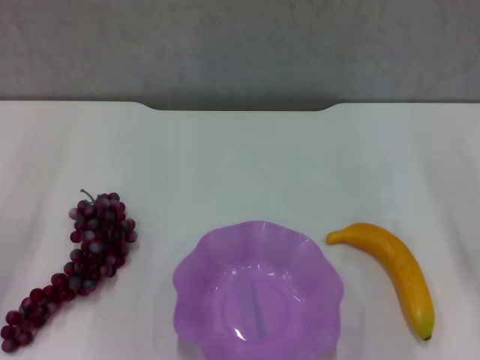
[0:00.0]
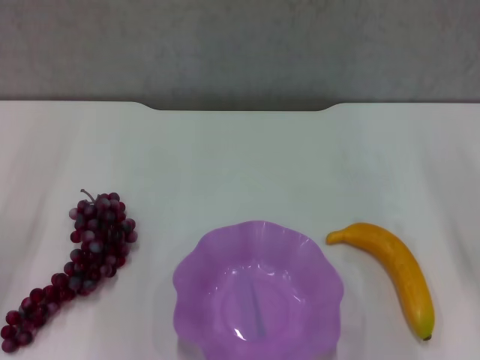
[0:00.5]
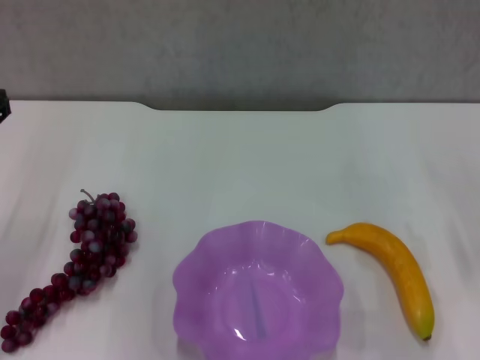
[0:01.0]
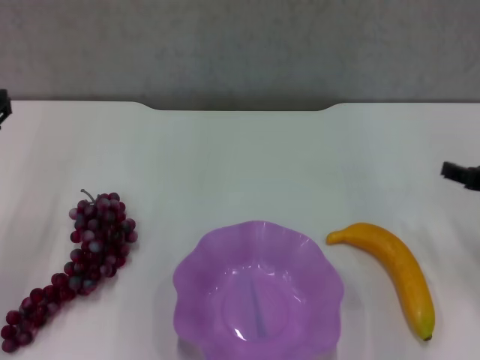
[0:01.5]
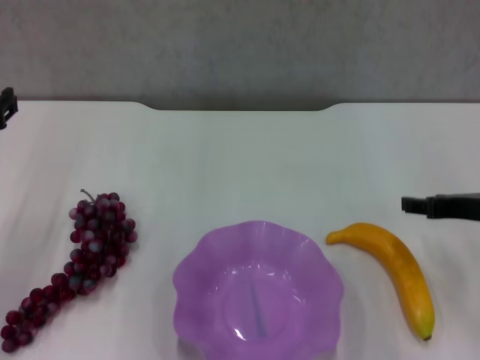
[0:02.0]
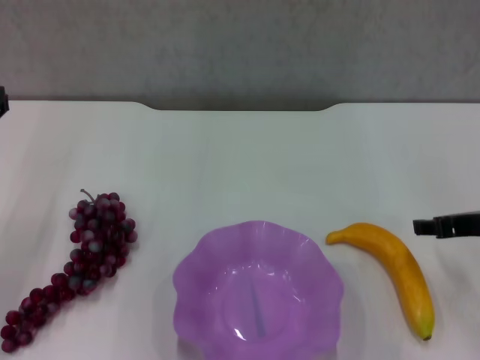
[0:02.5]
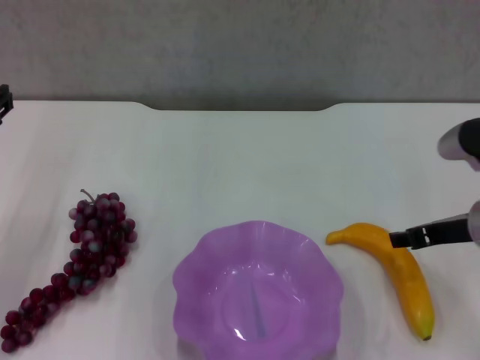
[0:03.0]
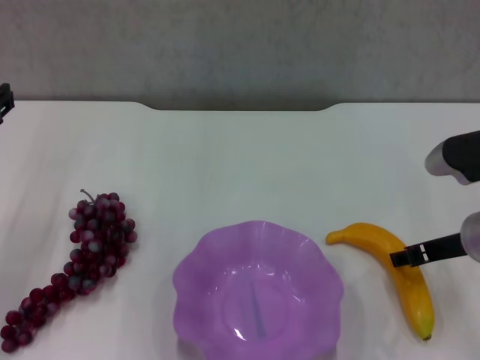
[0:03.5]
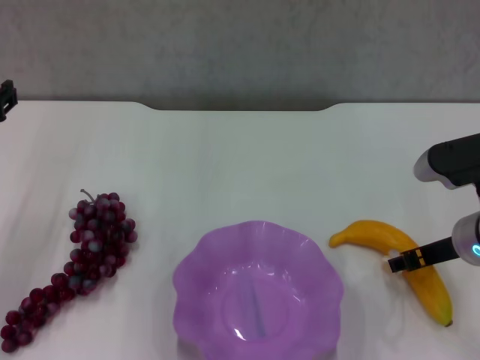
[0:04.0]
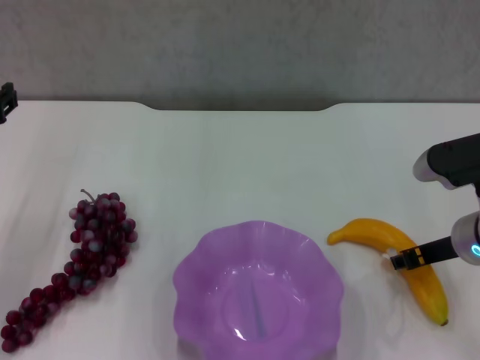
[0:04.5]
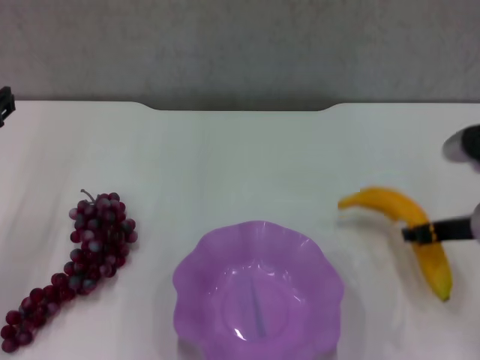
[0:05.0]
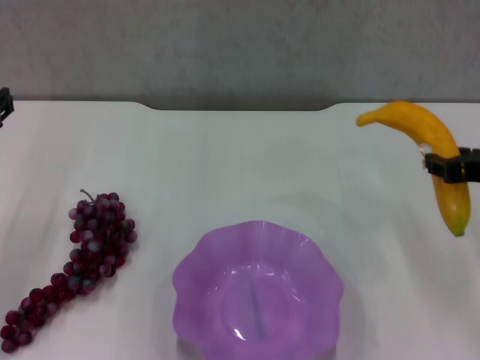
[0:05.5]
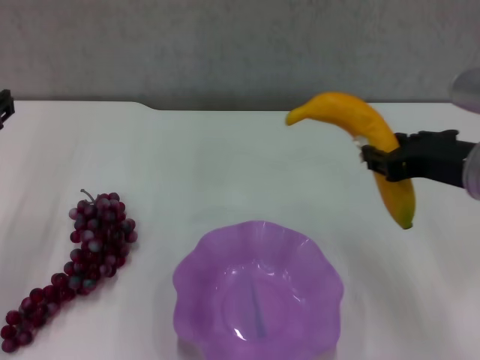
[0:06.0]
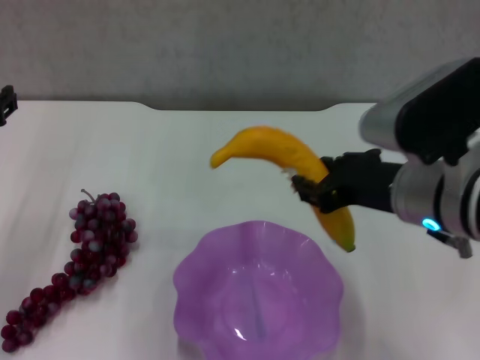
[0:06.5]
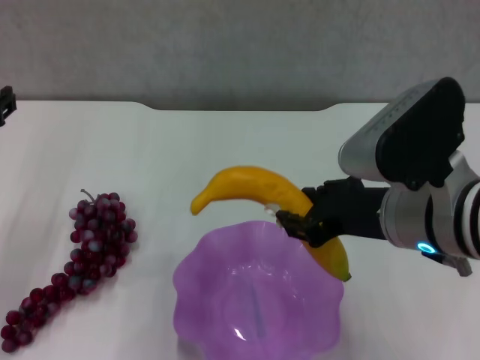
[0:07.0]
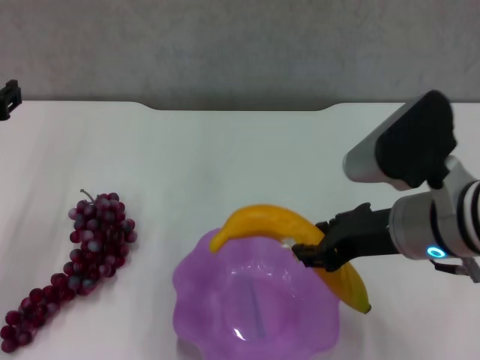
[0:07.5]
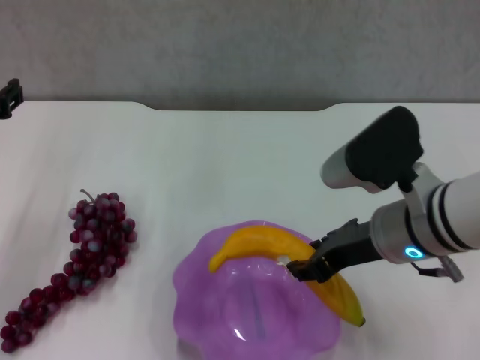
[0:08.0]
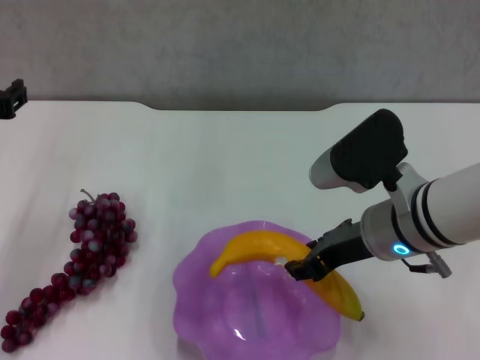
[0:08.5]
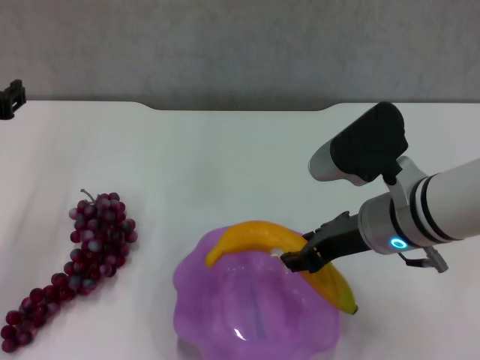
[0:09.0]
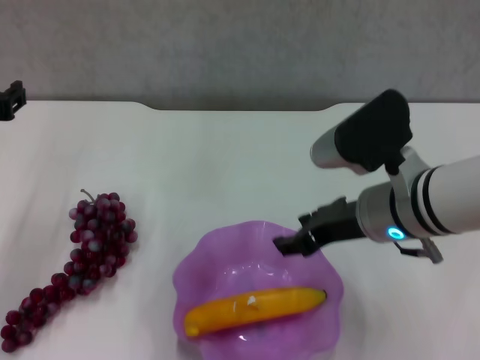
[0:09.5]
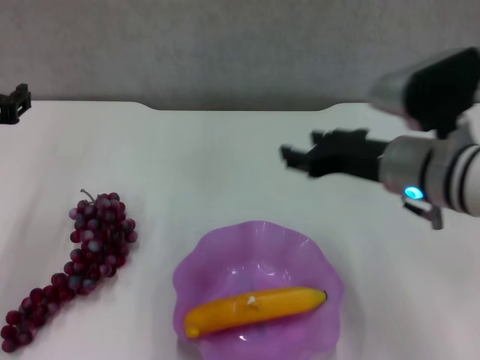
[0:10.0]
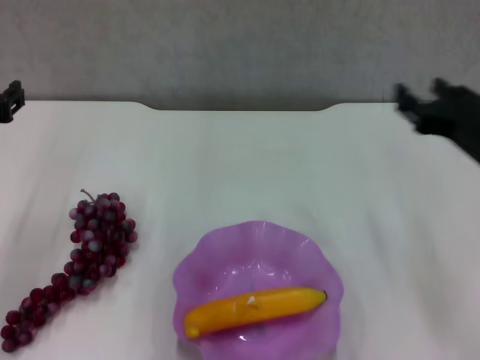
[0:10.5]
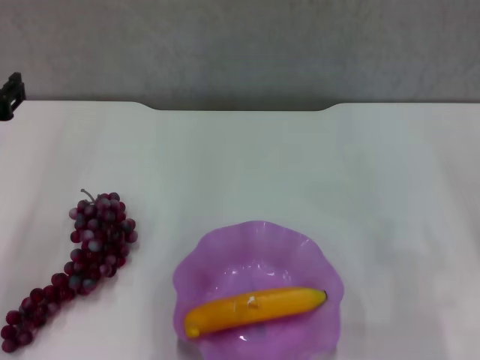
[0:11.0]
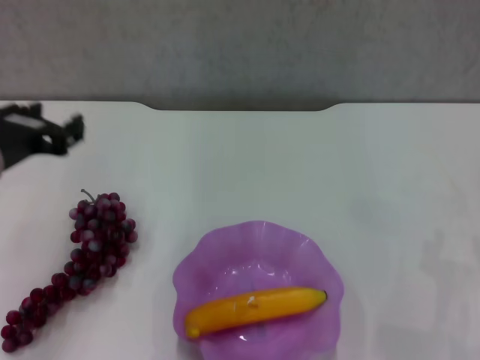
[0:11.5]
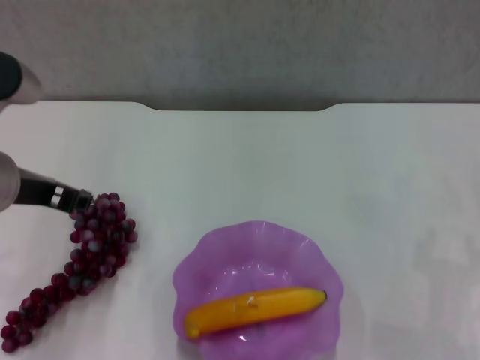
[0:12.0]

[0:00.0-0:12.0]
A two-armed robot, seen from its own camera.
Step, 0:00.0 to 0:04.5: Grasp the banana with right gripper.
Step, 0:05.0 to 0:09.0: Place the banana in the purple plate with right gripper.
0:02.0 to 0:04.0: The right gripper changes place by approximately 5 cm.
0:04.0 to 0:06.0: The right gripper moves upward, approximately 10 cm, and closes.
0:06.0 to 0:08.0: The right gripper shifts approximately 5 cm to the left.
0:08.0 to 0:10.0: The right gripper opens its fingers.
0:10.0 to 0:12.0: The left gripper heads to the right, covering about 5 cm, while the right gripper shifts roughly 20 cm to the right.

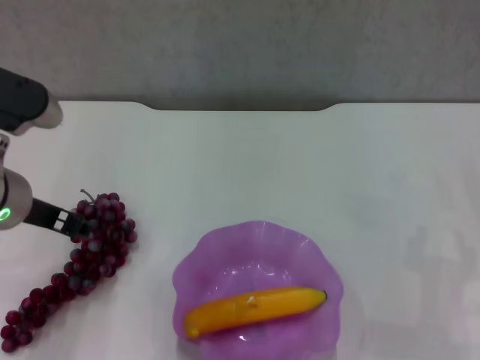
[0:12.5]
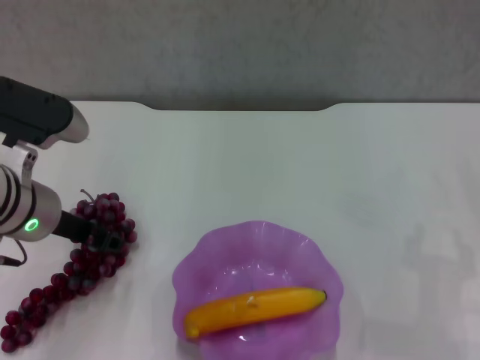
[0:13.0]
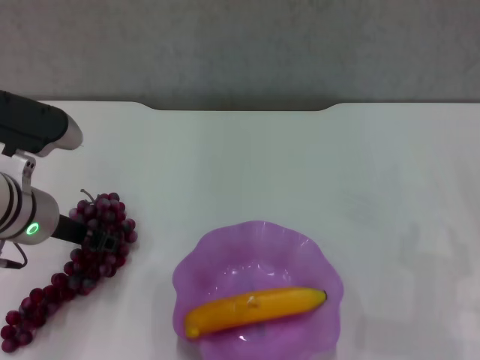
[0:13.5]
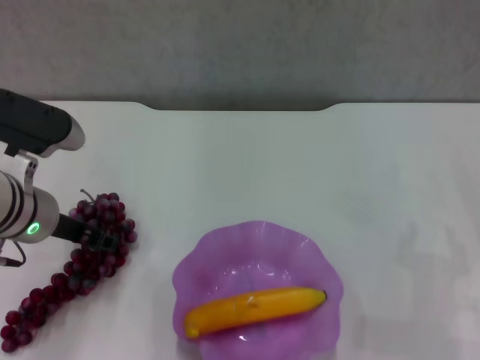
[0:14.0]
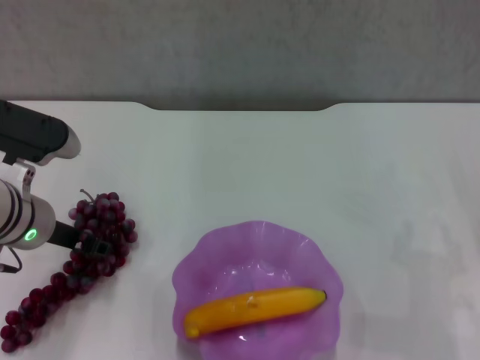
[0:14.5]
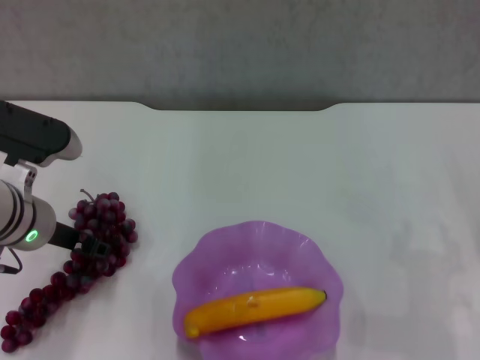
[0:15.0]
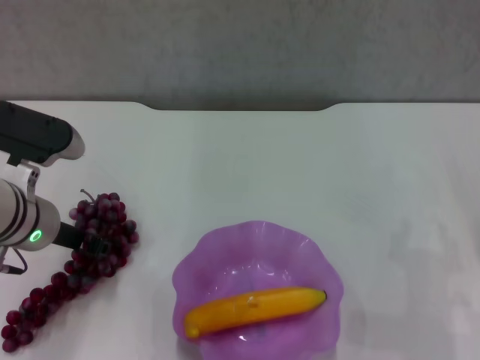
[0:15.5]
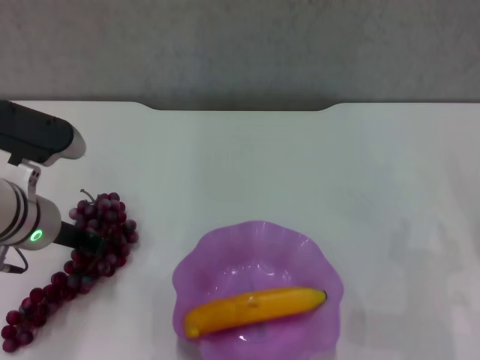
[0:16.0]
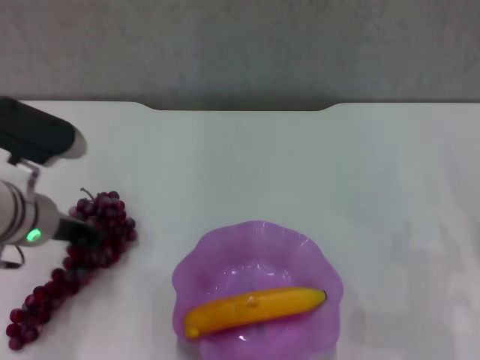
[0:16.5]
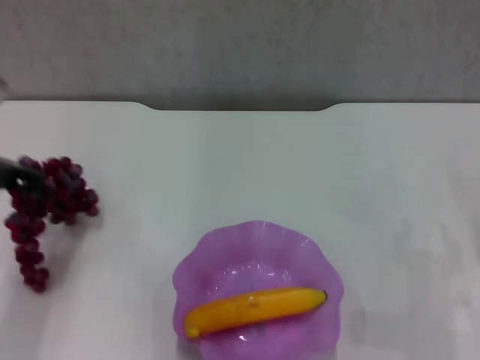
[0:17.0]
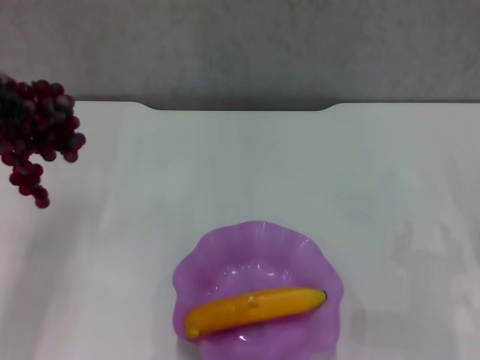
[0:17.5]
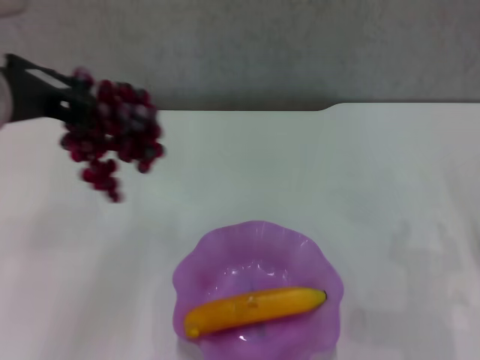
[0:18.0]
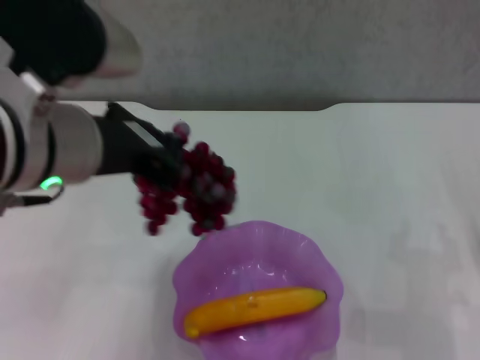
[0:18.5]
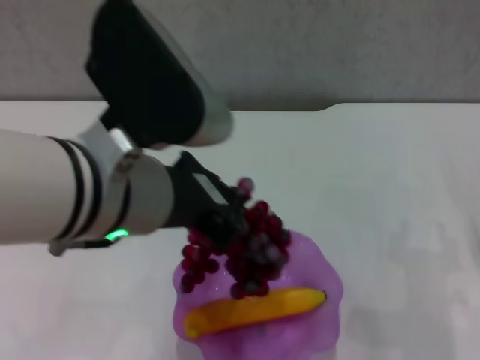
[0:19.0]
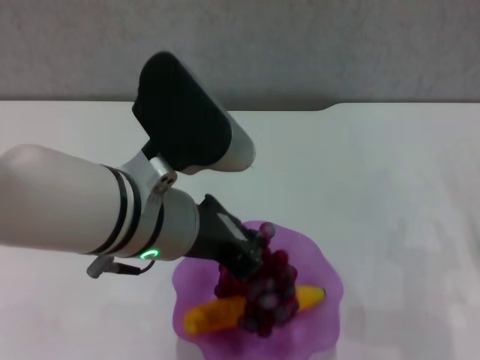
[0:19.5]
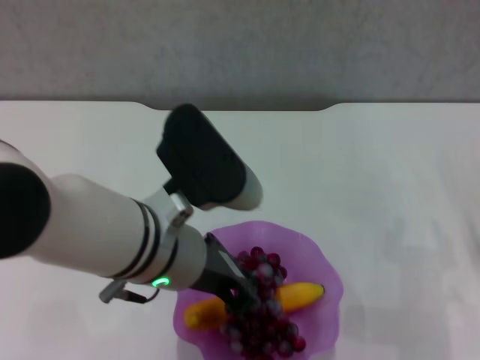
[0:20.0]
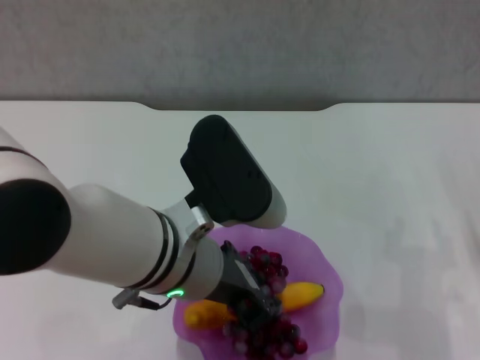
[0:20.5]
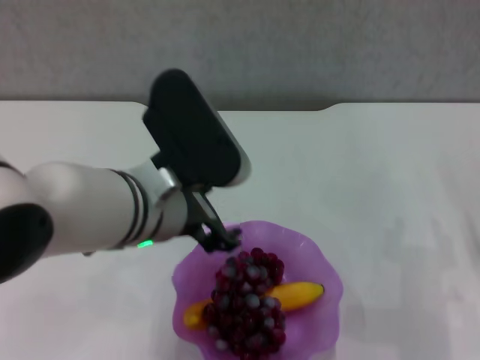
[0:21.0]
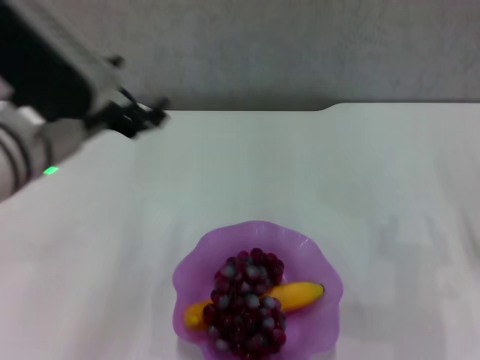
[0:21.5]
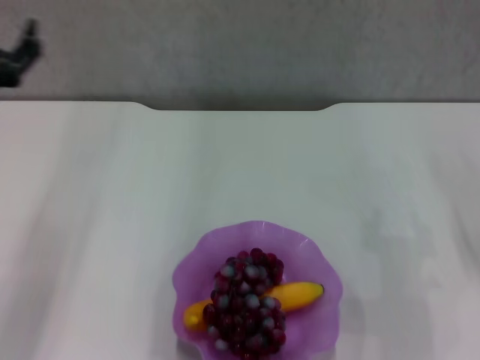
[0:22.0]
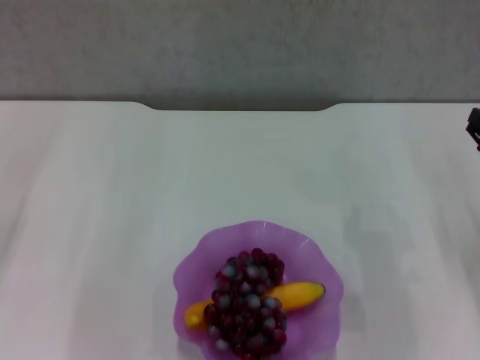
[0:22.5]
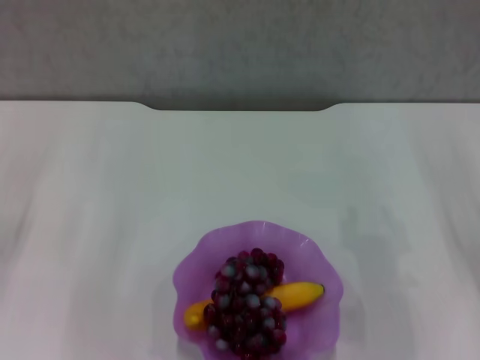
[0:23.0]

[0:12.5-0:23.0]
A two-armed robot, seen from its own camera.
Step, 0:12.5 to 0:16.0: Grasp the grape with left gripper.
Step, 0:16.5 to 0:20.5: Place the grape in the purple plate with left gripper.
0:12.5 to 0:14.5: The left gripper shifts some 5 cm downward.
0:14.5 to 0:16.5: The left gripper closes.
0:16.5 to 0:19.0: The left gripper moves upward, to the right and backward, about 20 cm.
0:19.0 to 0:21.0: The left gripper moves downward, some 5 cm, and opens up.
0:21.0 to 0:23.0: The left gripper goes some 25 cm to the left.

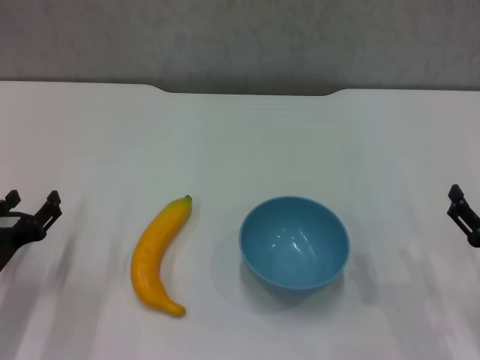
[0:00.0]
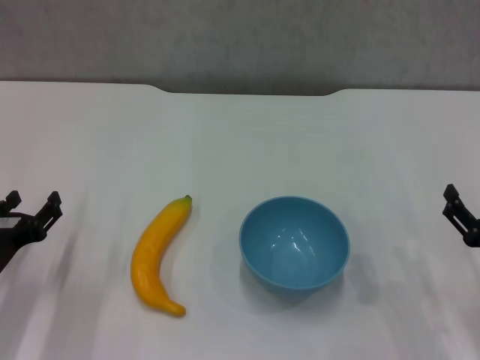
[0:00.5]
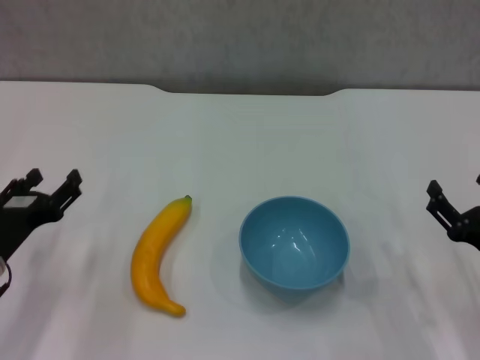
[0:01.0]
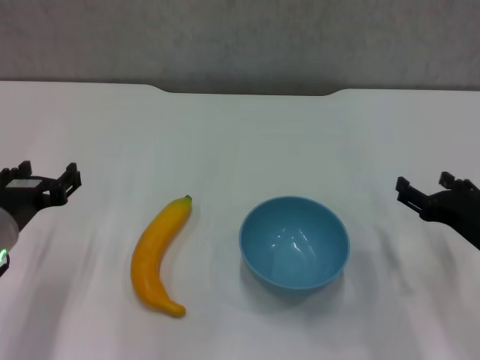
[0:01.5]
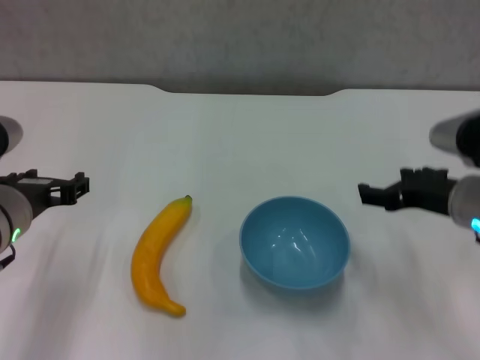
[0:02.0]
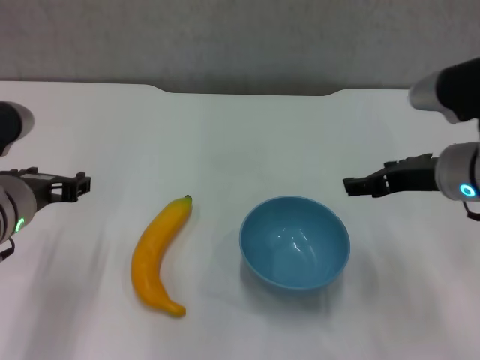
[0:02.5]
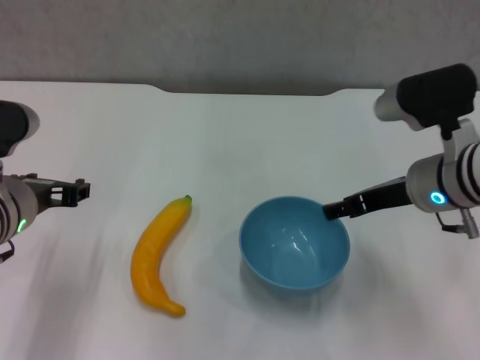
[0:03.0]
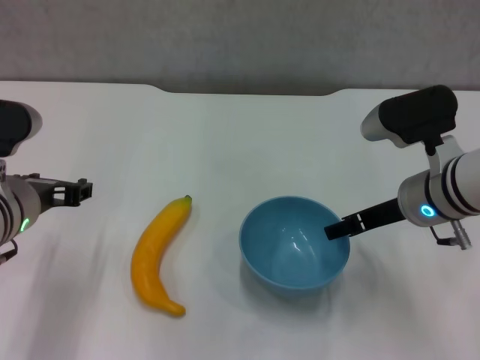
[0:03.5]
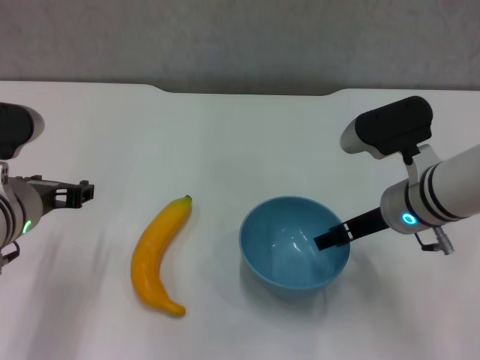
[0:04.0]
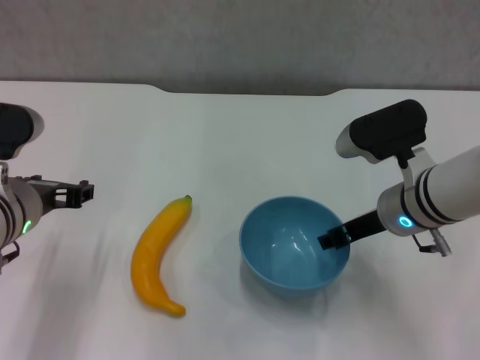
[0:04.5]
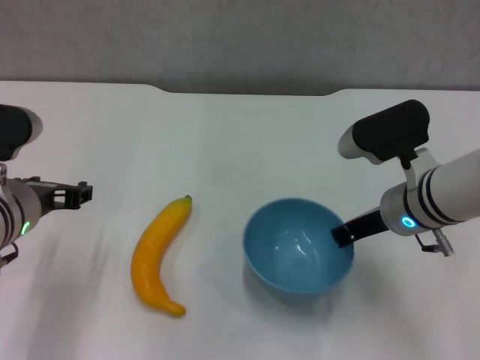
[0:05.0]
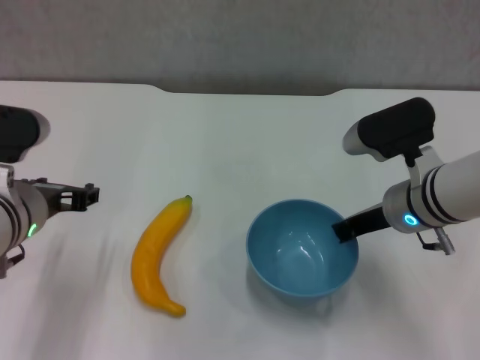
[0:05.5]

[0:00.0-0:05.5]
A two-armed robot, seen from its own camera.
Step, 0:00.0 to 0:05.0: Grasp the blue bowl with right gripper.
0:00.0 to 0:02.0: The right gripper shifts roughly 15 cm upward, forward and to the left, while the left gripper goes roughly 15 cm upward and to the right.
0:02.0 to 0:03.5: The right gripper moves about 5 cm.
0:03.5 to 0:05.5: The right gripper closes its fingers.
